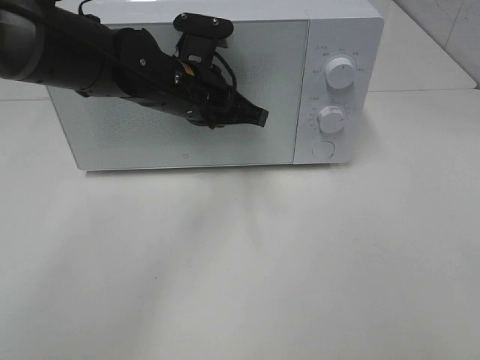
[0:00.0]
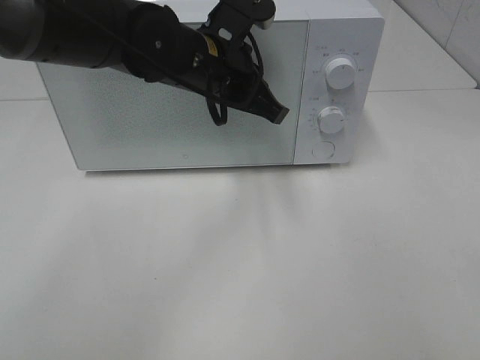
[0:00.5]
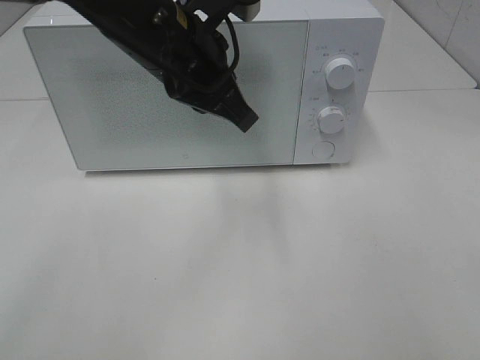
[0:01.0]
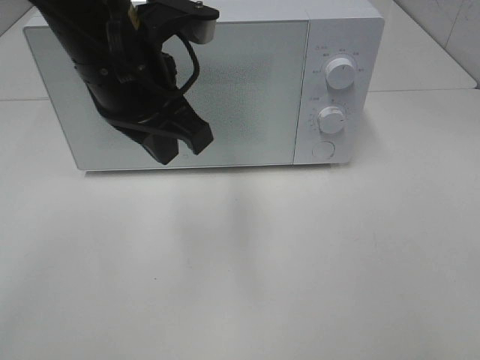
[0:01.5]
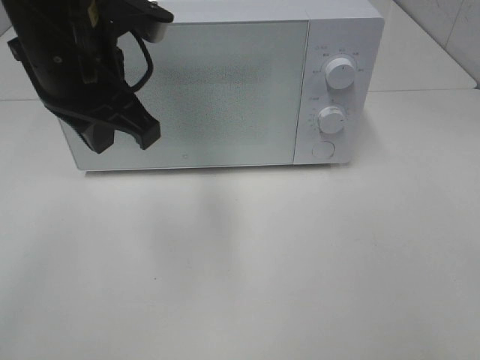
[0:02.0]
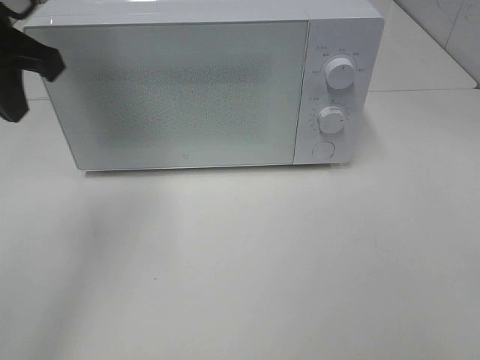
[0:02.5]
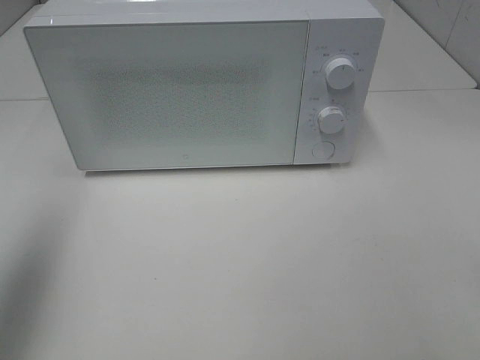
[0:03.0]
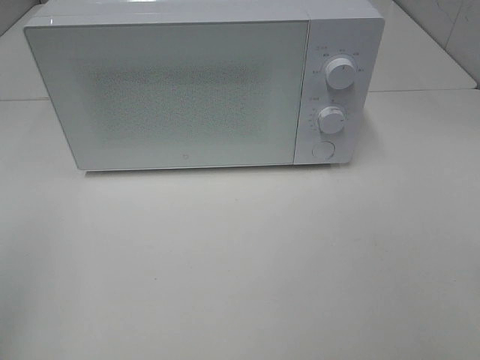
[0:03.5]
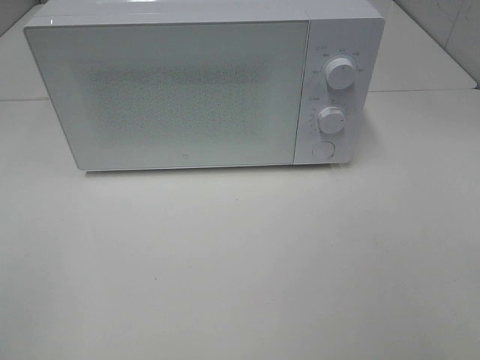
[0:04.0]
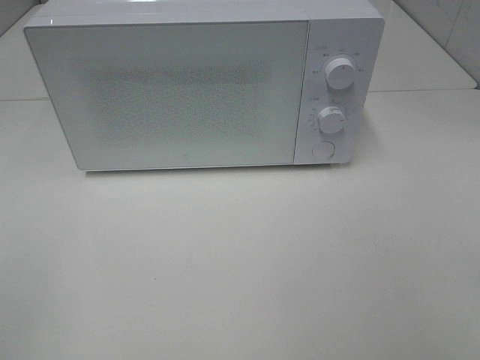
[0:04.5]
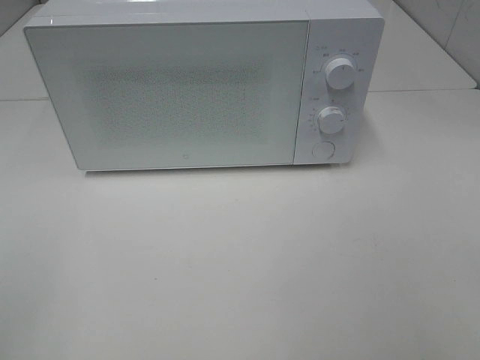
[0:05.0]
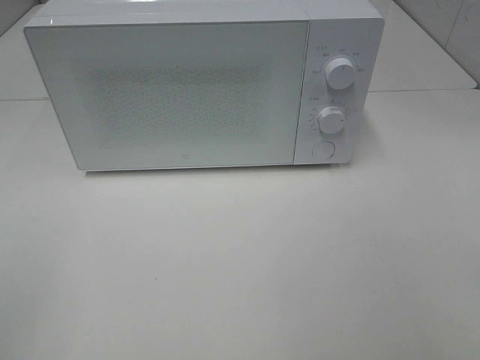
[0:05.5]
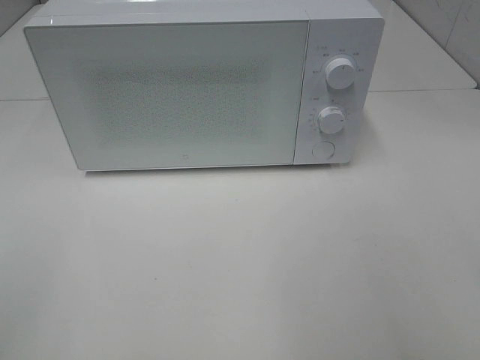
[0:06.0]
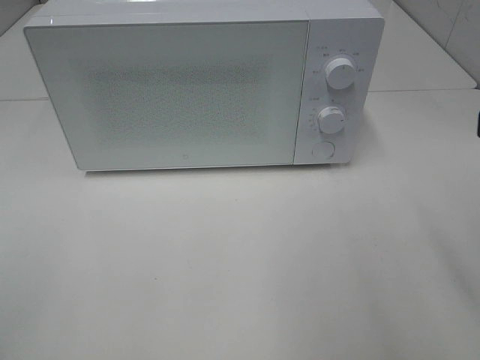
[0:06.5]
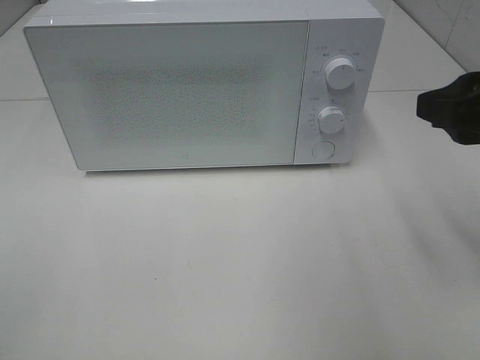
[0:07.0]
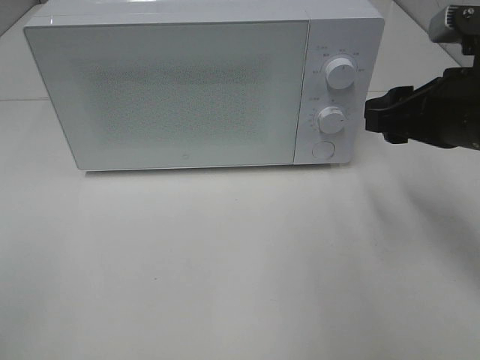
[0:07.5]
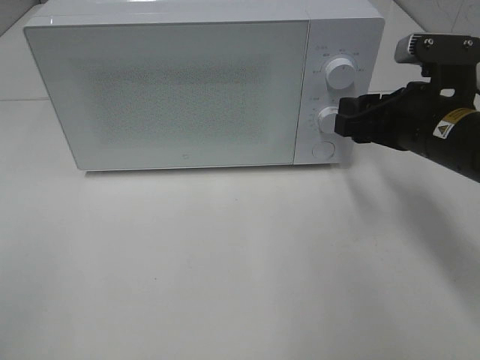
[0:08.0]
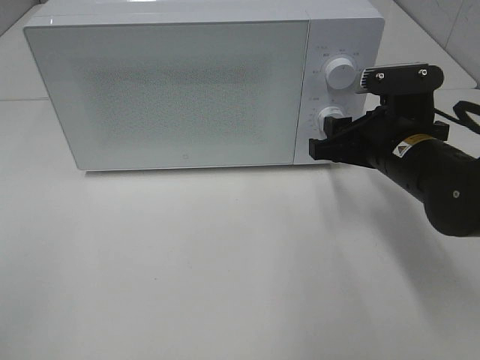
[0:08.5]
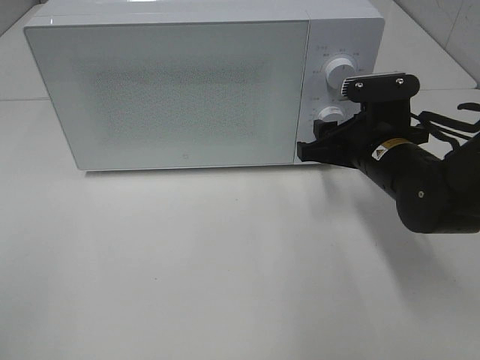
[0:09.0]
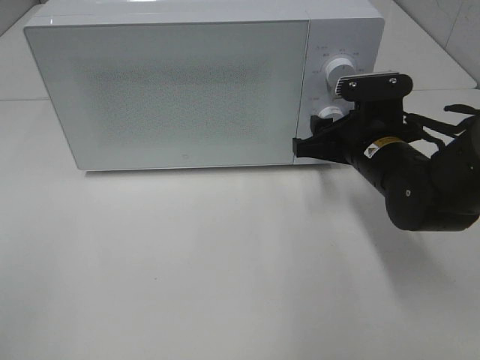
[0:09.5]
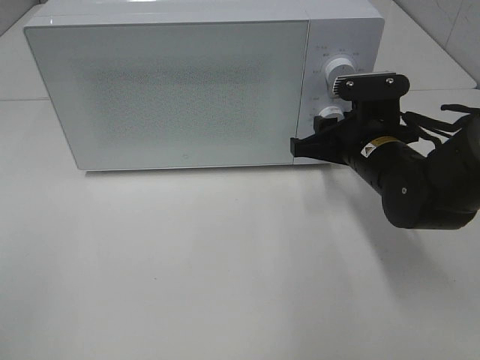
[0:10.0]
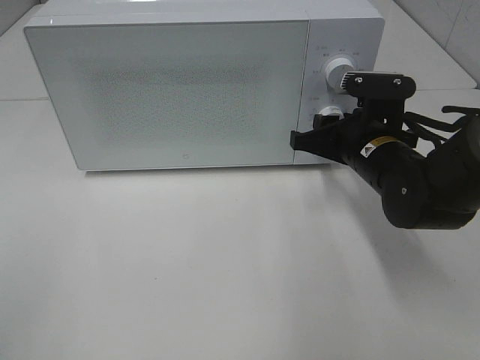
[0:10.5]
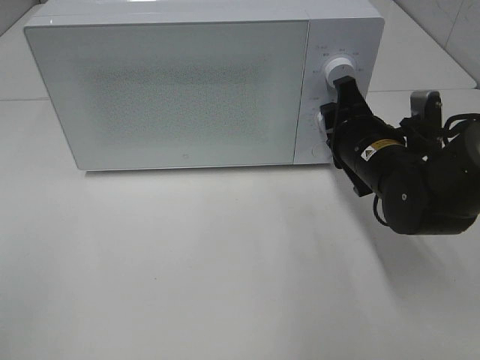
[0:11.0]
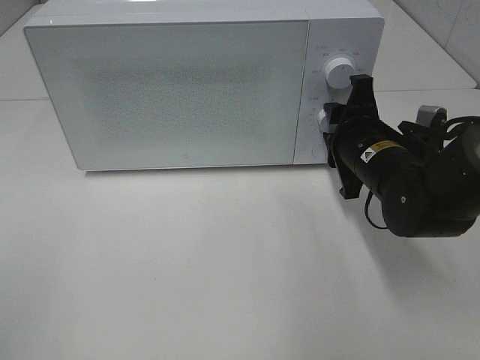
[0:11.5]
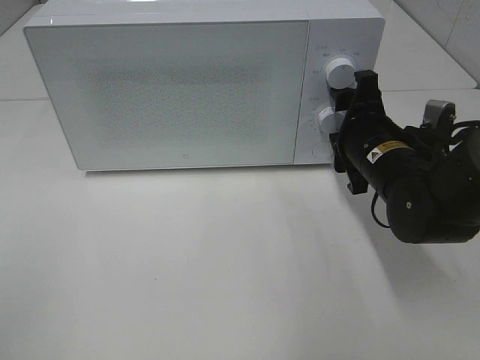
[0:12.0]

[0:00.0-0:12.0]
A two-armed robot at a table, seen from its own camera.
Task of the whole recording: Heat the burger.
Step, 0:01.0 to 0:11.5: Right hand: twist timer button.
0:00.0 to 0:02.0: The left gripper travels upward, backward and to the left by about 15 cm.
0:02.0 to 0:04.0: The left gripper travels backward and to the left by about 35 cm, and closes.
0:06.0 to 0:08.0: The right gripper goes roughly 25 cm forward and downward.
0:08.0 to 0:10.0: The right gripper travels downward by some 5 cm.
0:10.0 to 0:12.0: The right gripper opens its fingers.

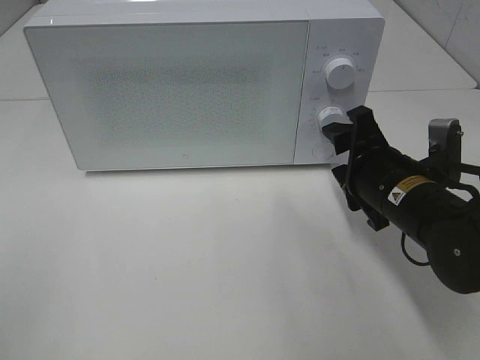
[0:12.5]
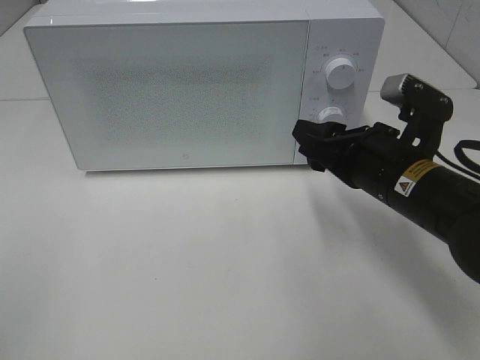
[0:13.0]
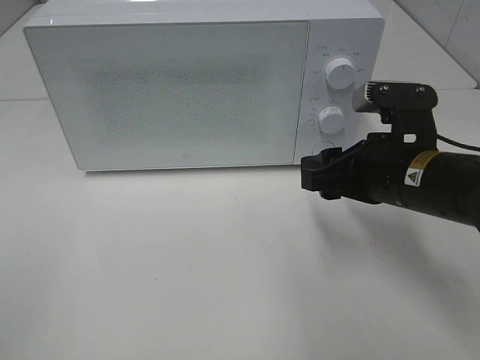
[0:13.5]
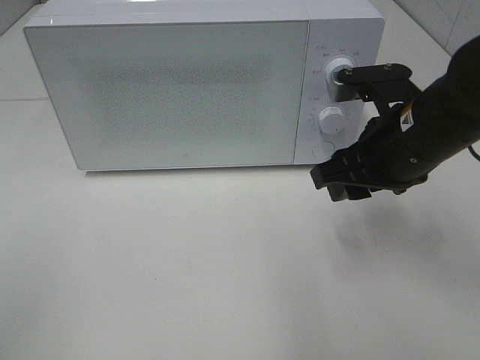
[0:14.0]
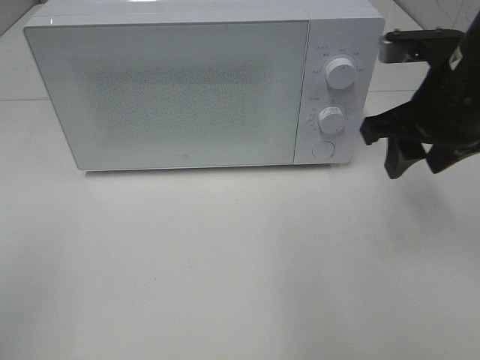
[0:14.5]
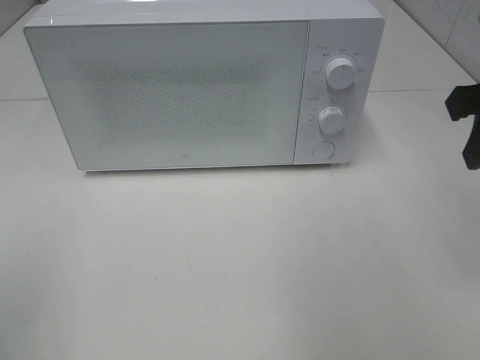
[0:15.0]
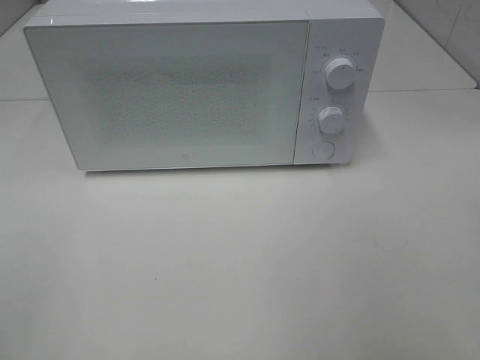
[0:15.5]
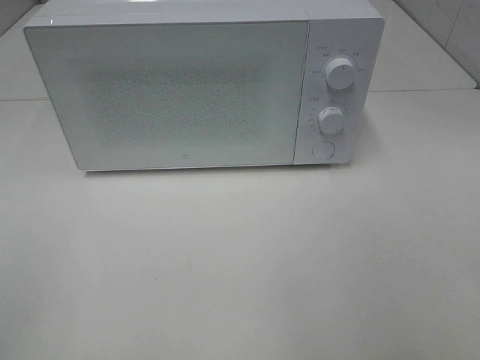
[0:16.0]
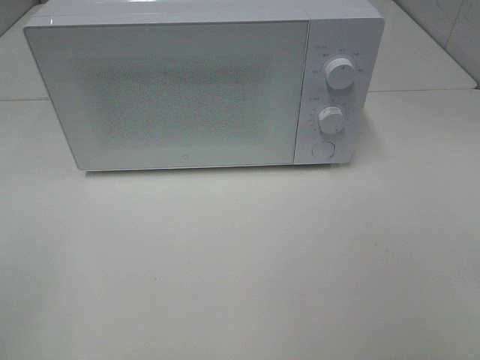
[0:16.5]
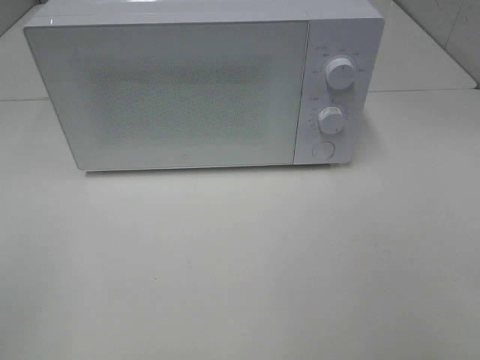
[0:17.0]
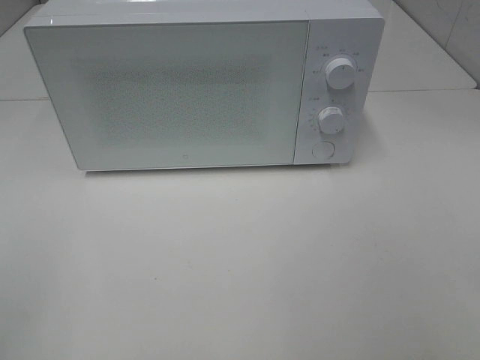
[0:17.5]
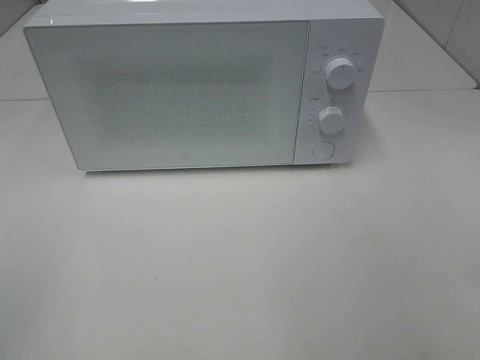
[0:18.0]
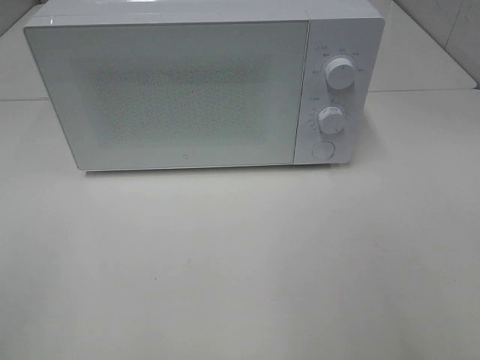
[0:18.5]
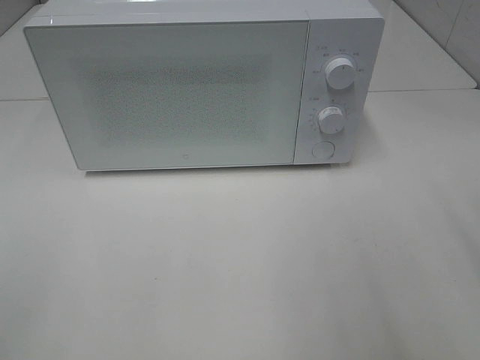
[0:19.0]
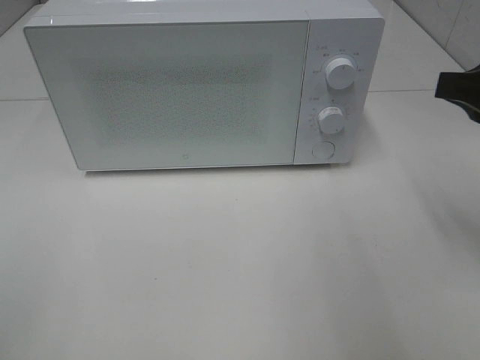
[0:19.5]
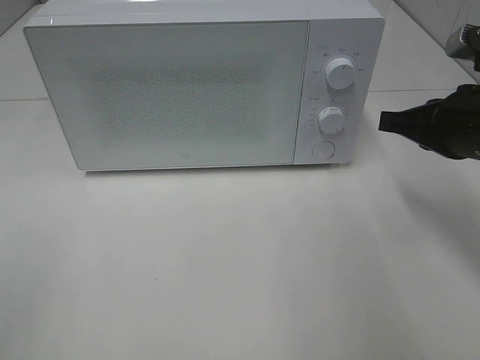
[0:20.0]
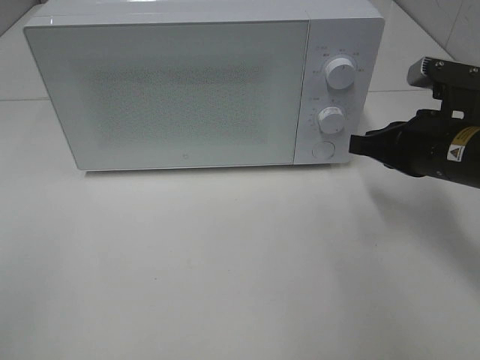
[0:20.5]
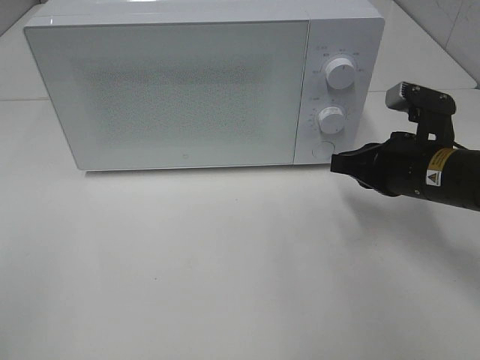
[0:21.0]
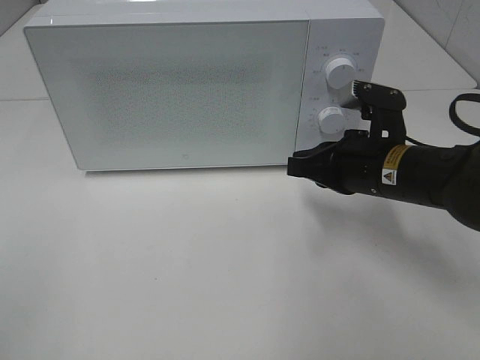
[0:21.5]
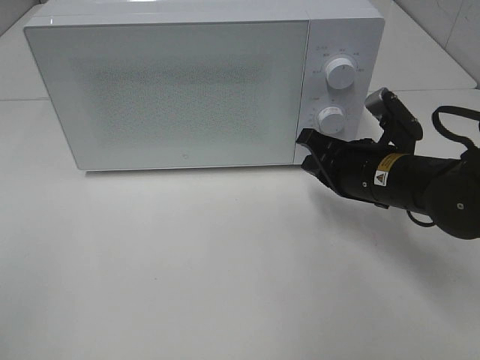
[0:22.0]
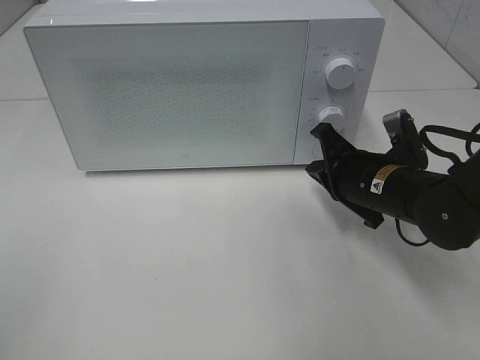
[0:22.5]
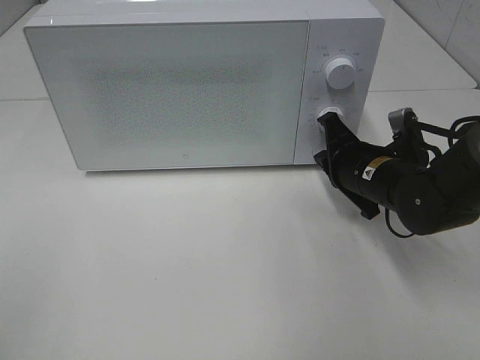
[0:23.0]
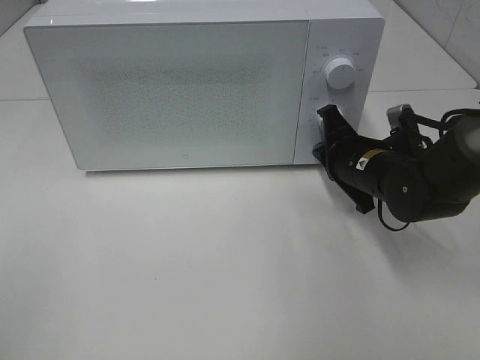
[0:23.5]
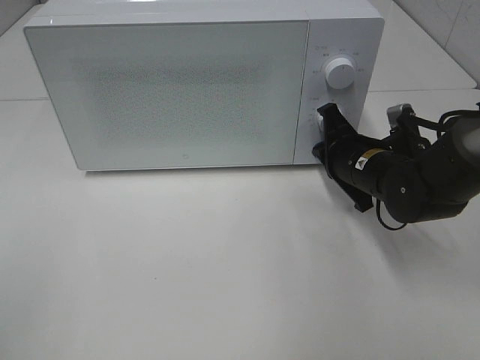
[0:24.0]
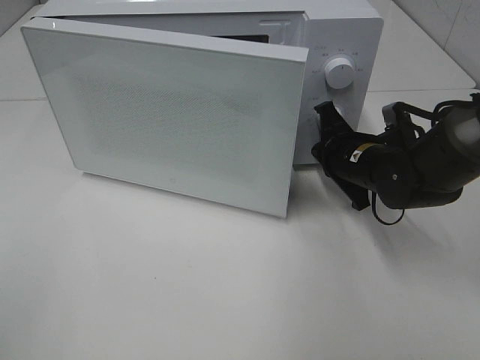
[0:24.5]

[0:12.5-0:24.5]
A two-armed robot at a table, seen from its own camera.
Task of the whole recording: Heat the burger.
0:12.5 to 0:14.5: The right gripper shifts some 10 cm upward.
0:14.5 to 0:16.5: The right gripper heads backward, covering approximately 25 cm.
0:18.5 to 0:20.5: The right gripper shifts approximately 25 cm forward and downward, and closes up.
0:20.5 to 0:22.5: The right gripper is displaced downward and to the left by roughly 10 cm.
0:22.5 to 0:24.5: The right gripper moves forward, roughly 5 cm.

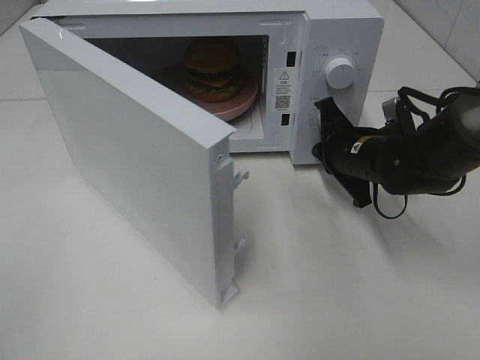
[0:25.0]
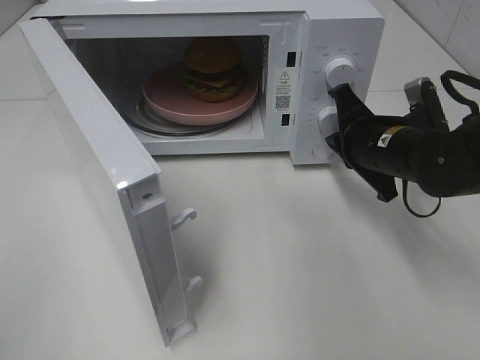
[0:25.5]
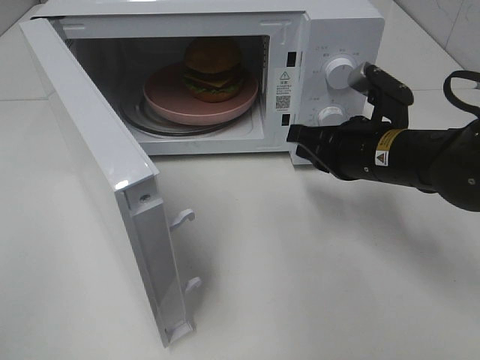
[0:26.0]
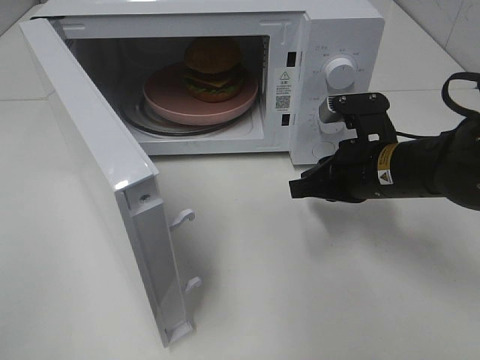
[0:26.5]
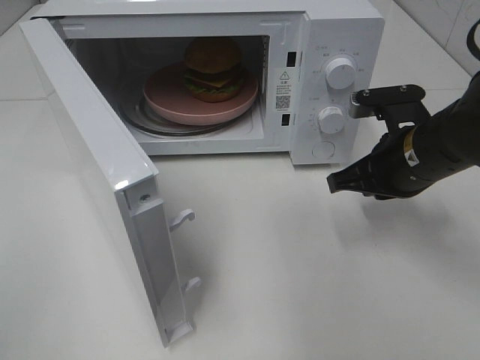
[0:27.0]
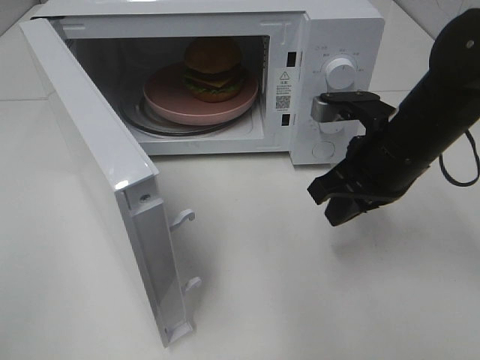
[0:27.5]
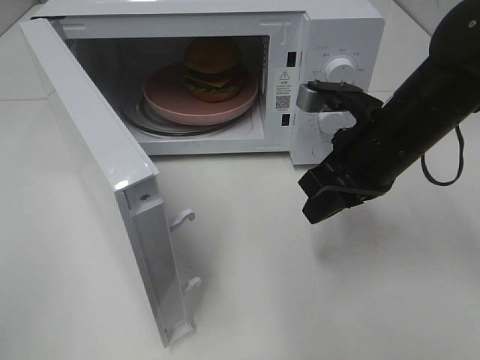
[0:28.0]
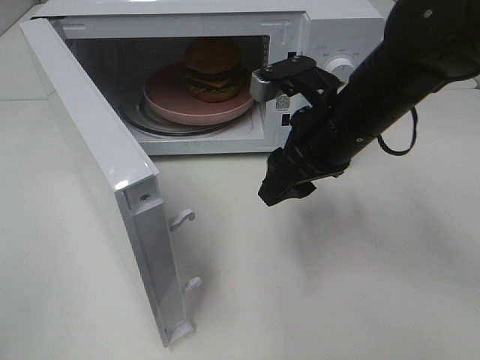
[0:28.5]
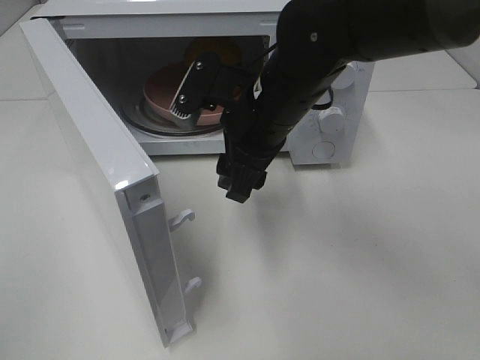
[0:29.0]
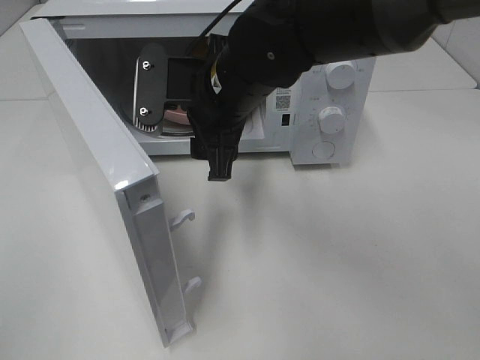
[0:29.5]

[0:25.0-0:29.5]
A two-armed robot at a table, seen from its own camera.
Task of the whole recording: Heat the burger.
0:25.0 to 0:27.0: The right gripper shifts about 10 cm backward and upward.
0:27.0 to 0:29.5: The right gripper travels to the left by about 20 cm, and opens its fingers.
